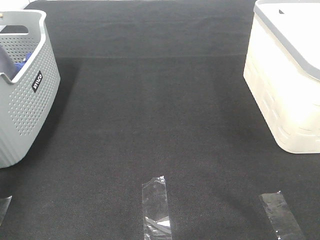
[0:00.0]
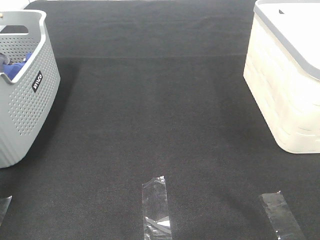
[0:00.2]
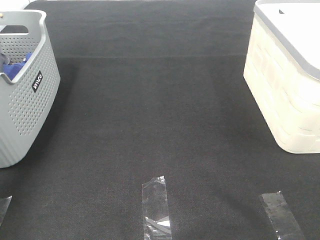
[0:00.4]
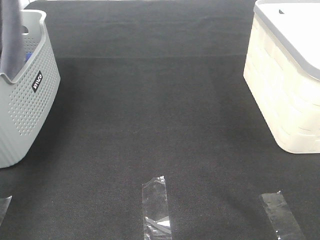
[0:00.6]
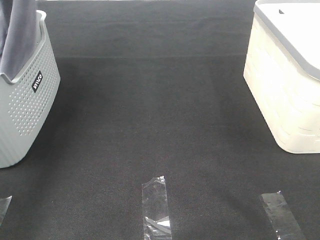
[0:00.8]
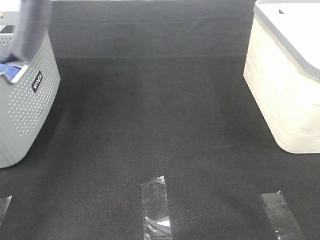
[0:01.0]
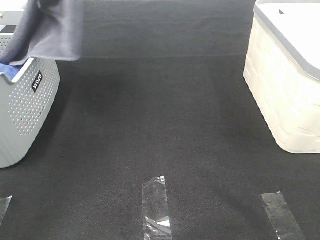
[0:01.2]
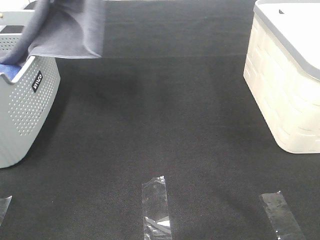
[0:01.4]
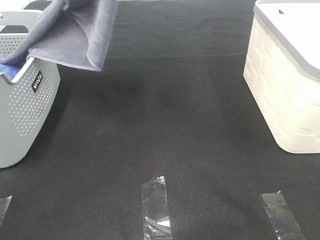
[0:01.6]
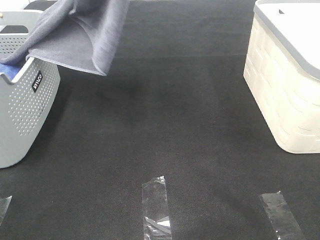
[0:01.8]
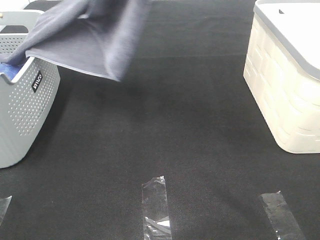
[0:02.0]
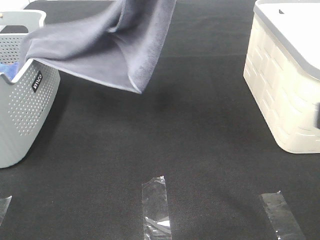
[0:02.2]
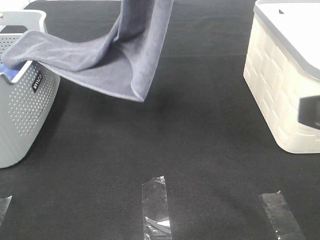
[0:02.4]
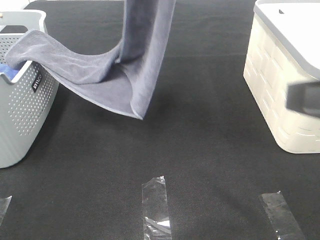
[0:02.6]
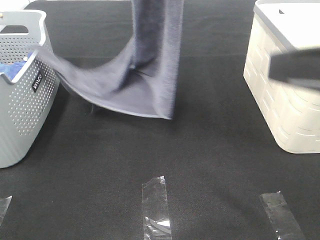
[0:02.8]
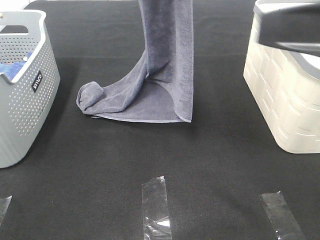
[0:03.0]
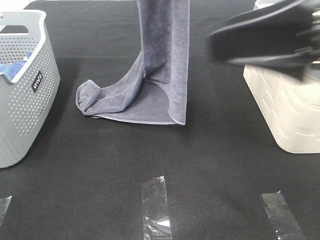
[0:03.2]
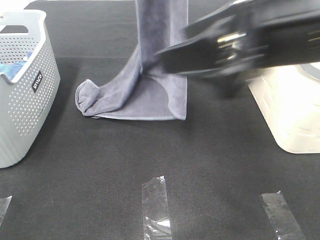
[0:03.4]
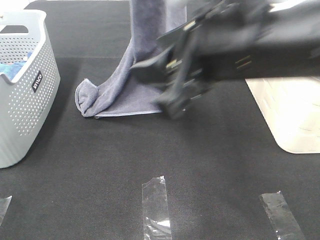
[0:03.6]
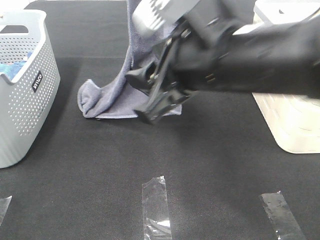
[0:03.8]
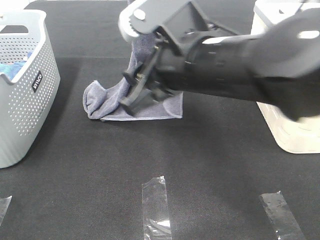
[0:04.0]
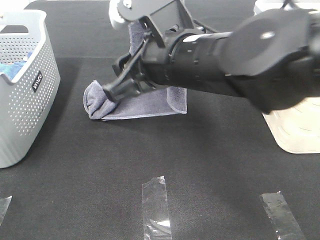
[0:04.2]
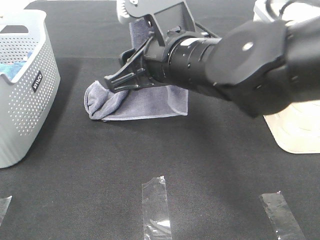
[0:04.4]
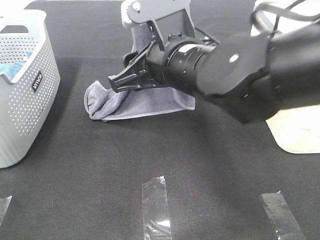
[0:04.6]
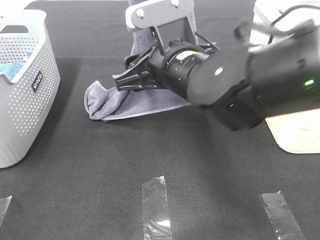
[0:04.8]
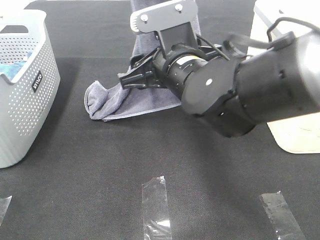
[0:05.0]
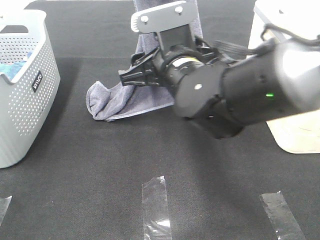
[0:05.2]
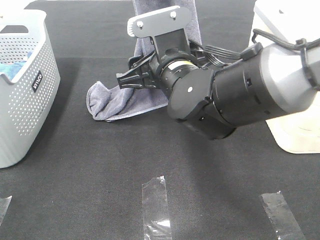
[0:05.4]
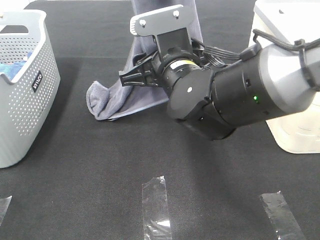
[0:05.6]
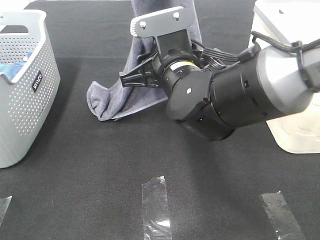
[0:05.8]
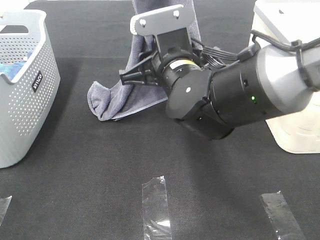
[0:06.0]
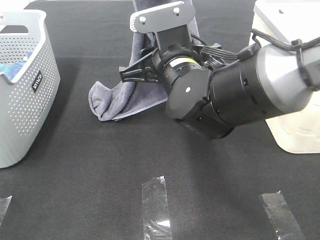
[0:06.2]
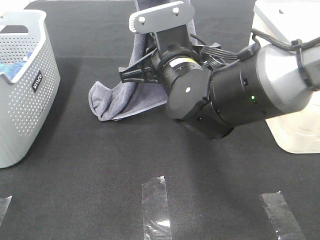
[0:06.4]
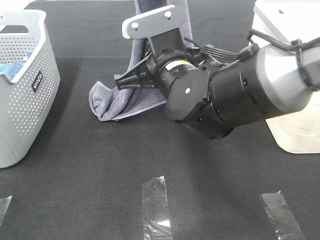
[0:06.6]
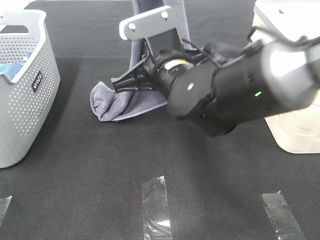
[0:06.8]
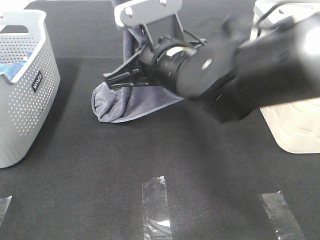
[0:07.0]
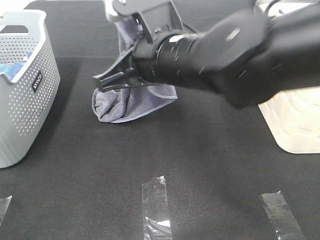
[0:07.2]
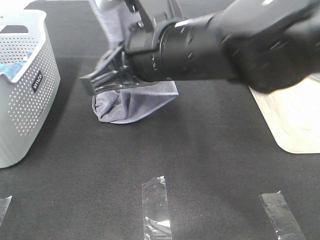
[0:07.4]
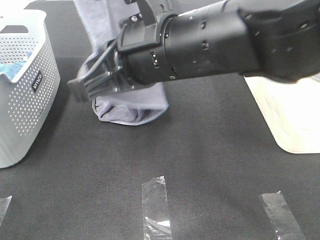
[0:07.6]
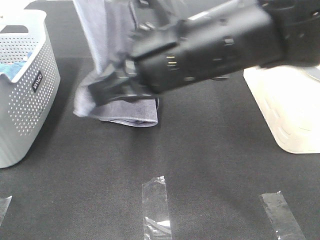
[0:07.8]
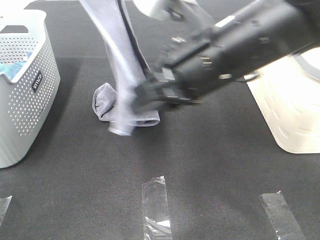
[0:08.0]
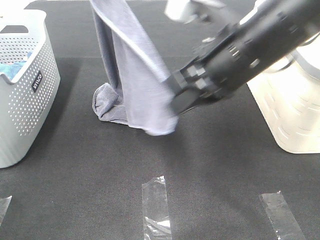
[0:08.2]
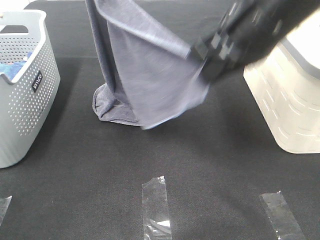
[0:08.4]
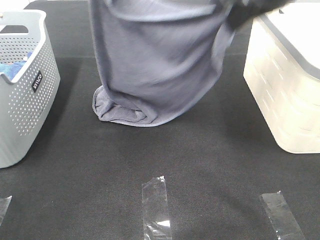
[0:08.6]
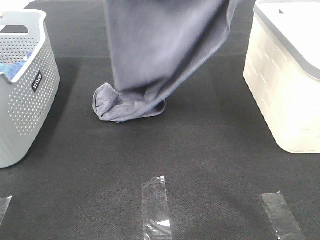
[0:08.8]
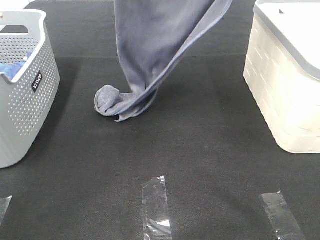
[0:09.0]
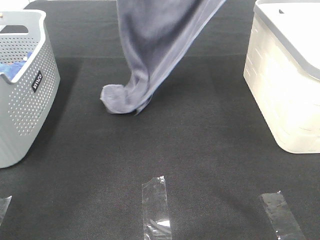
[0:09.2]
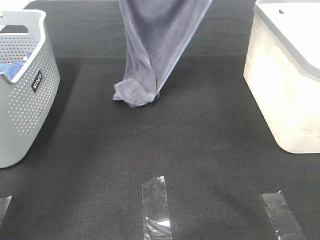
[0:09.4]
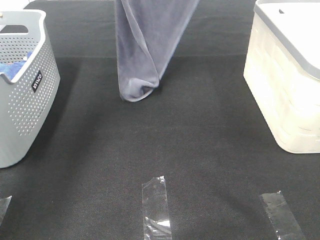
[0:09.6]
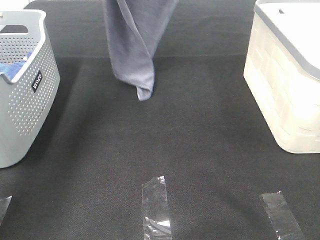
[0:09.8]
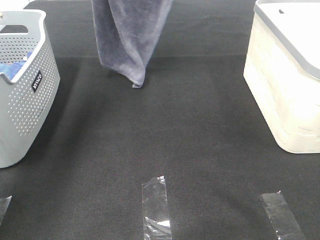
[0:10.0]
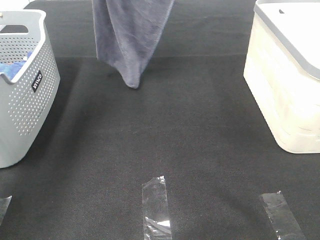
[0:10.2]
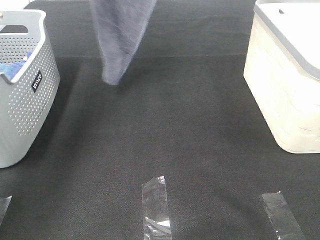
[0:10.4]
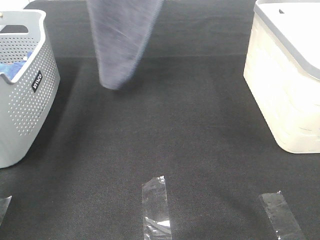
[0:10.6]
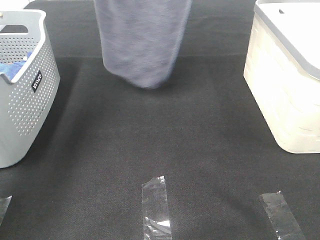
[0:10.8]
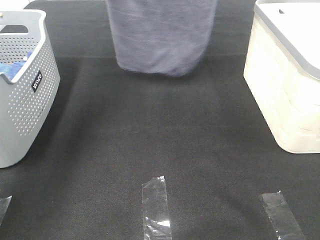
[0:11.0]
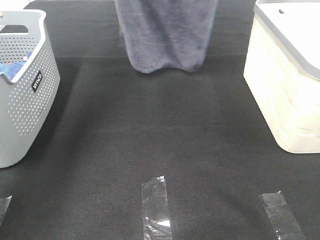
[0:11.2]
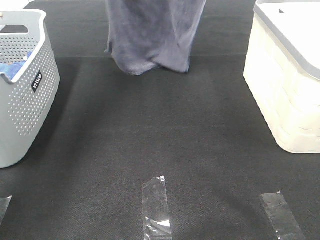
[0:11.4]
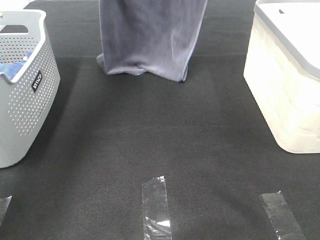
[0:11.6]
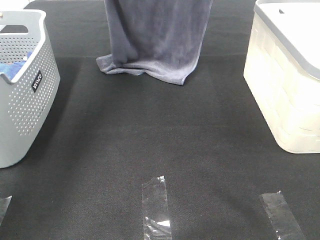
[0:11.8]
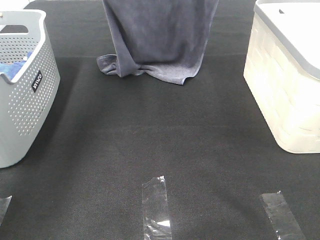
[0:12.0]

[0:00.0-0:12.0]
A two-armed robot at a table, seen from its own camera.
Task of the whole recording: Remove the towel and place it.
Step, 1.0 to 7.8 s: Right hand: grab a corner of the grey towel and straighten it.
0.0 to 1.6 s: The left gripper shifts some 30 cm to the right and upward.
1.6 to 3.0 s: The right gripper moves forward and to the left, roughly 15 cm. The left gripper goes some 10 cm to the right and downward.
3.0 to 4.4 s: The left gripper shifts by about 5 cm, while the right gripper is displaced to the left, forward and downward by approximately 20 cm.
4.4 to 6.0 s: The right gripper shifts by about 5 cm.
6.0 to 7.6 s: The right gripper travels upward and backward by about 10 cm, and closes up. Meanwhile the left gripper ends up roughly 5 cm from where it was.
7.6 to 9.0 s: The left gripper shifts about 5 cm forward. Meanwhile the right gripper moves forward, to the right and upward, roughly 25 cm.
9.0 to 10.4 s: The right gripper shifts roughly 10 cm forward. The left gripper travels to the left and upward by roughly 10 cm.
10.4 to 12.0 s: The right gripper shifts some 5 cm downward, while the left gripper travels downward by approximately 10 cm.

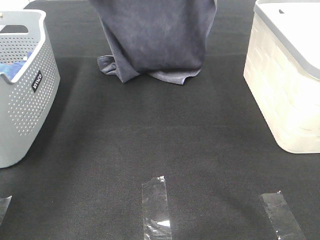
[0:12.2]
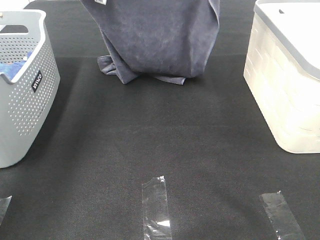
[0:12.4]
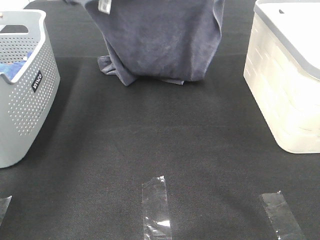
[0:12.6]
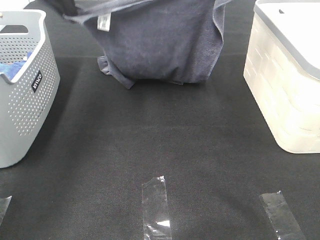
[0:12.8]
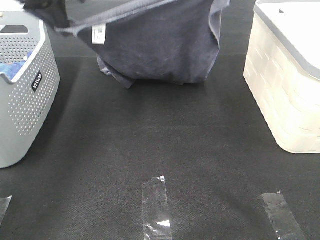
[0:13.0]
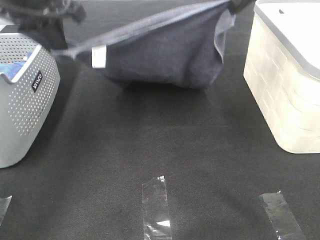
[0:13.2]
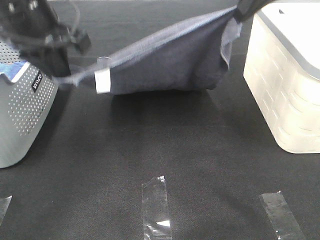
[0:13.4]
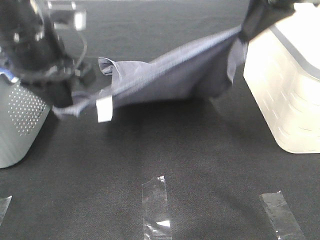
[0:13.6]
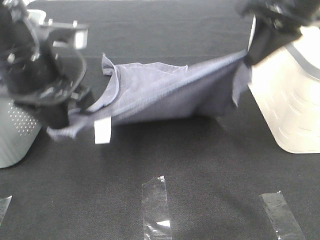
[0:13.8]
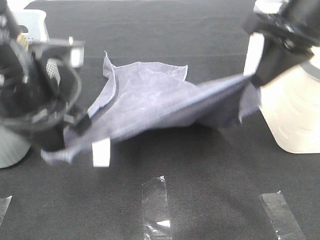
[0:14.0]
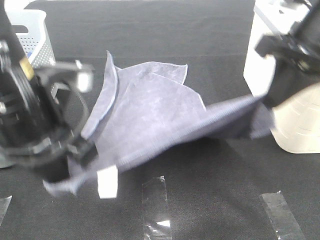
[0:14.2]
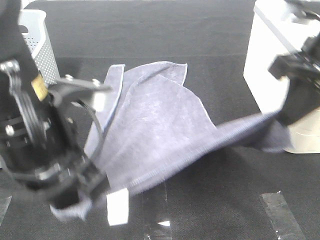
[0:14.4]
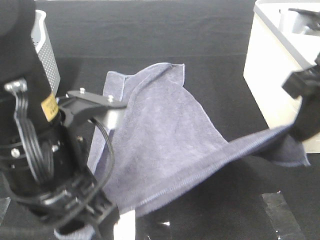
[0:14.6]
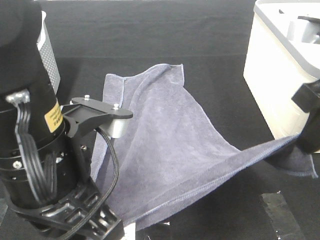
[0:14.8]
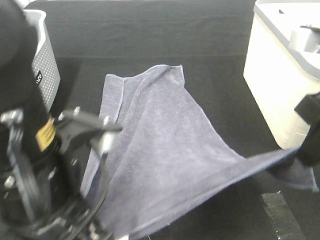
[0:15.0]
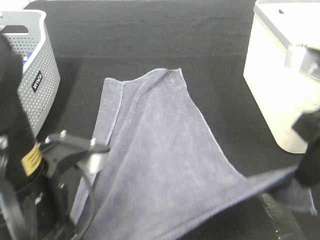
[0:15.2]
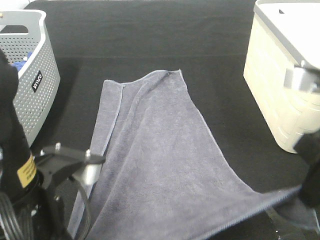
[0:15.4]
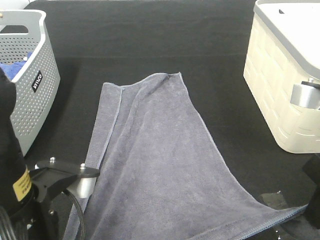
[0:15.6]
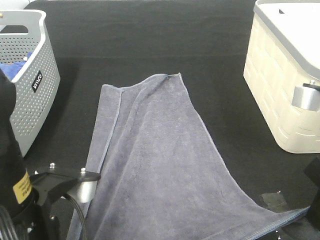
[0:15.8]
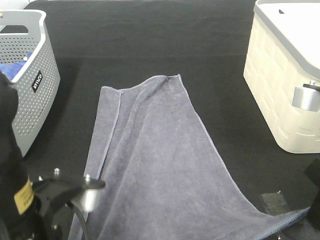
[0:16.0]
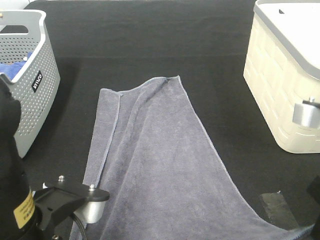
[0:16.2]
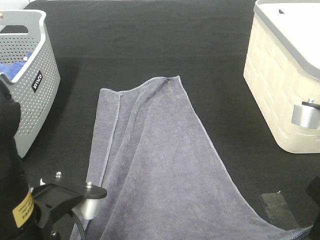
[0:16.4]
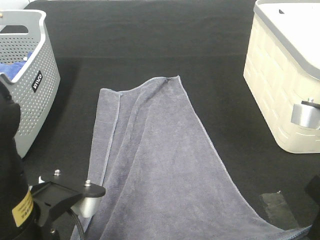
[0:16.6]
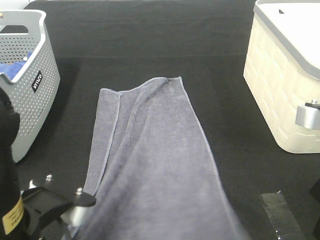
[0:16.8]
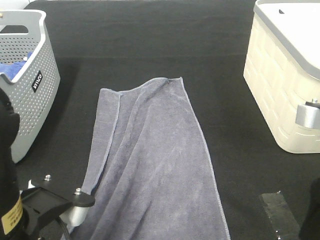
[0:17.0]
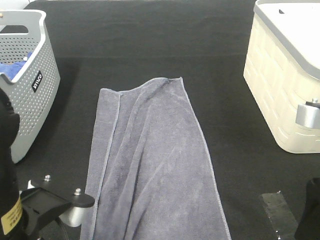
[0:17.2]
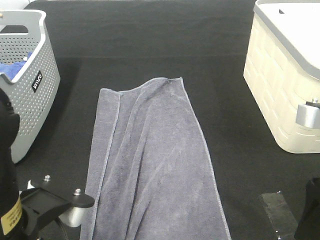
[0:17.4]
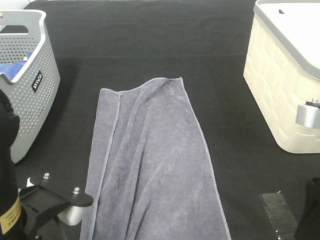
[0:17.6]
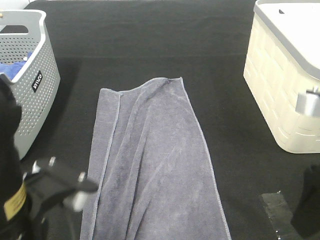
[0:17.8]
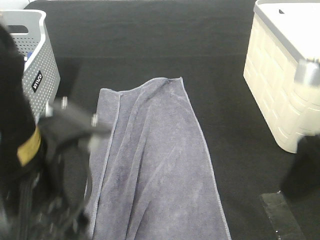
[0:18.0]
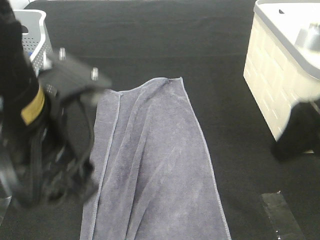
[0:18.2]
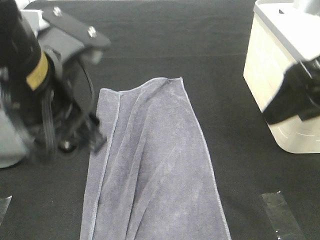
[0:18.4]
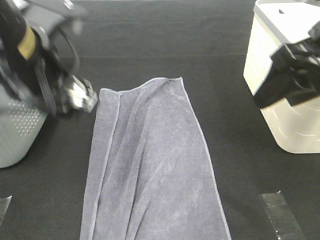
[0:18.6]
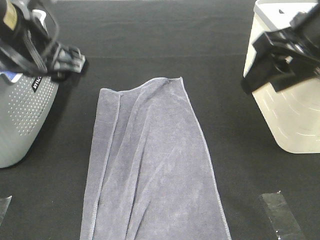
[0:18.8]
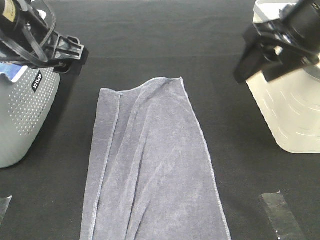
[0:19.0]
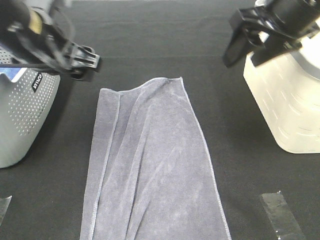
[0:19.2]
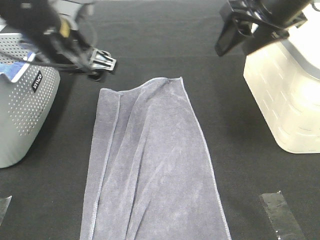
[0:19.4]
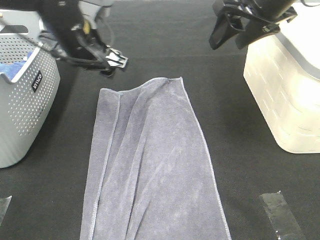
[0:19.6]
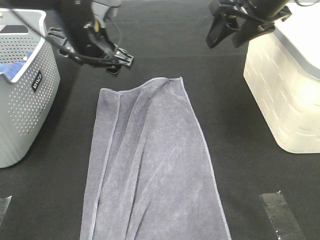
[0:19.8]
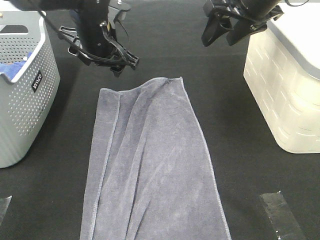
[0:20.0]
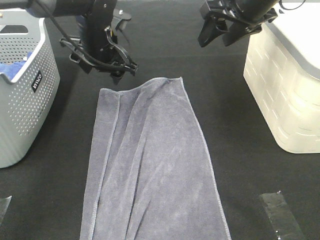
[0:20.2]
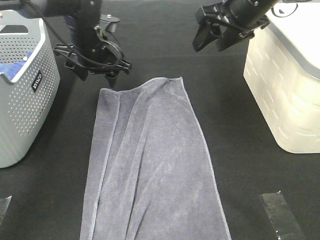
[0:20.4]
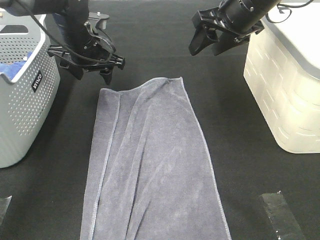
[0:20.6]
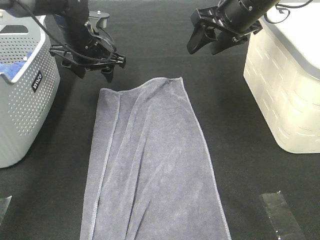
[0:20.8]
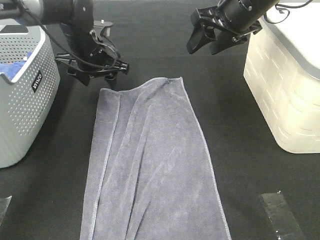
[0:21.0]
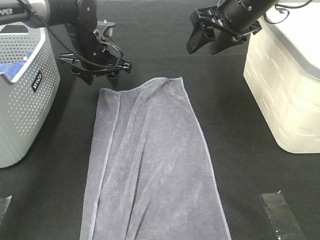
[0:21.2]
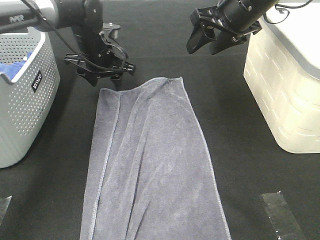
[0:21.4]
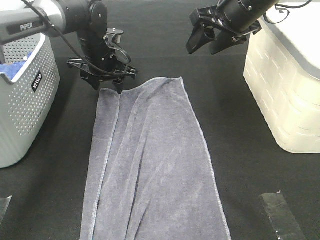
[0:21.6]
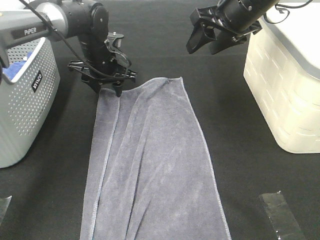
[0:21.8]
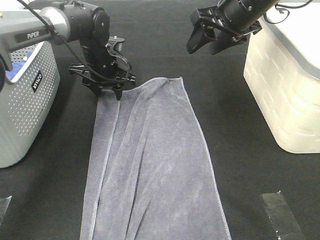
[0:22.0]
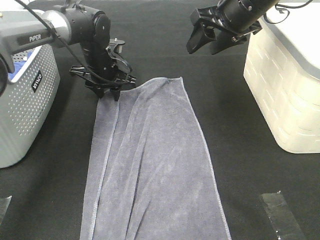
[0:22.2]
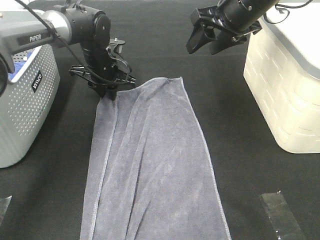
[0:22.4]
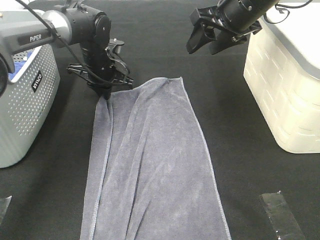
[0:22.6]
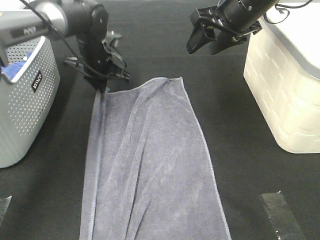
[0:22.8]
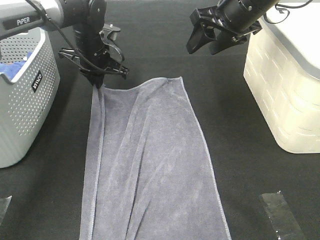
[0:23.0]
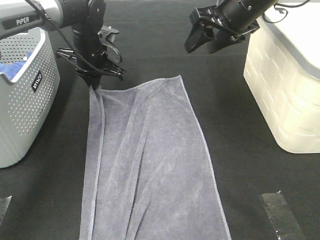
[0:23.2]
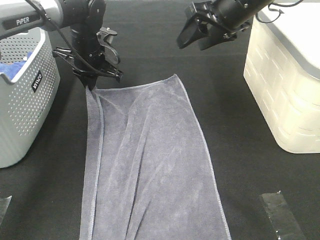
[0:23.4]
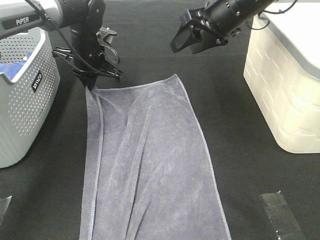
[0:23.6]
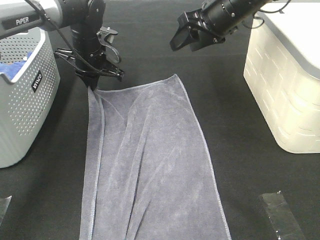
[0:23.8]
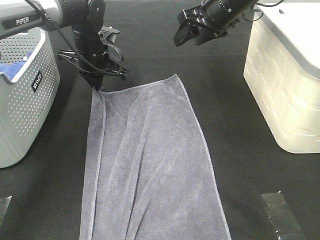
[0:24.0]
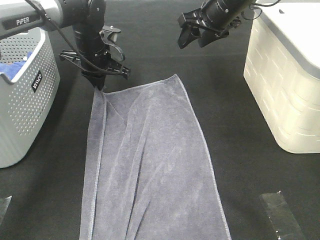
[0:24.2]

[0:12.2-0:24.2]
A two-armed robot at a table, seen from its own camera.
Task of the whole recording: Remove the towel and place it.
12.2 to 13.8 s: The grippers both shift backward and downward by roughly 20 cm.
13.8 to 15.2 s: The right gripper heads backward and downward, covering about 15 cm. Meanwhile the left gripper shifts some 15 cm backward.
16.6 to 18.2 s: The left gripper shifts approximately 10 cm forward and upward, and opens up, while the right gripper is displaced upward by about 5 cm, and opens up.
18.2 to 19.8 s: Both grippers travel together forward, approximately 20 cm.
19.8 to 21.2 s: The left gripper goes about 10 cm forward and downward.
21.2 to 22.6 s: The left gripper closes up.
22.6 to 24.2 s: The right gripper moves forward, some 10 cm.
